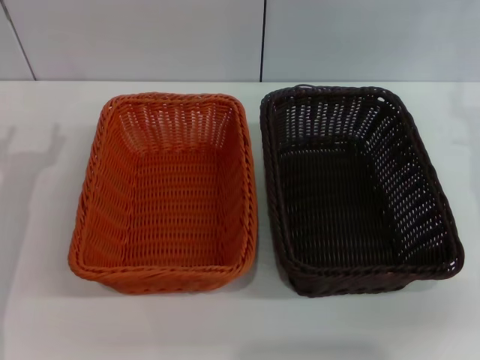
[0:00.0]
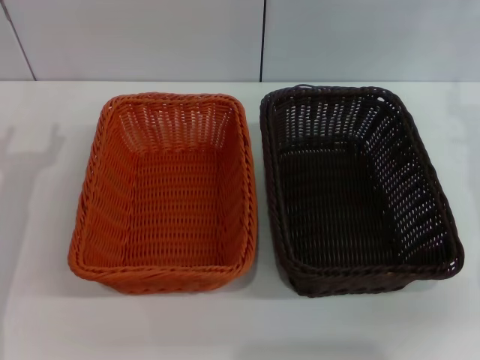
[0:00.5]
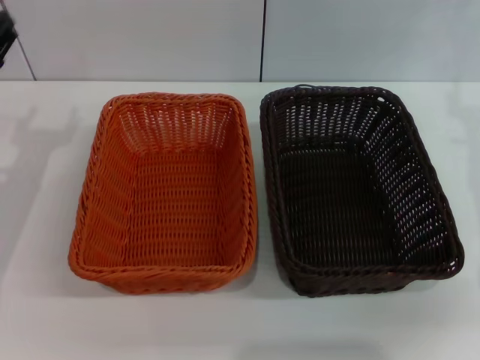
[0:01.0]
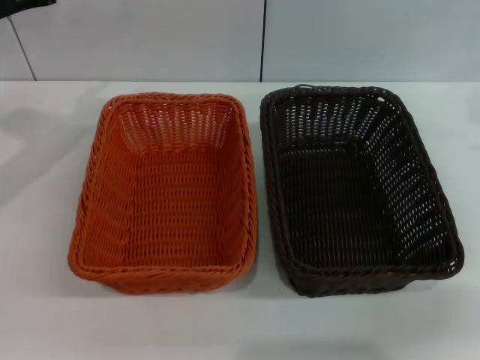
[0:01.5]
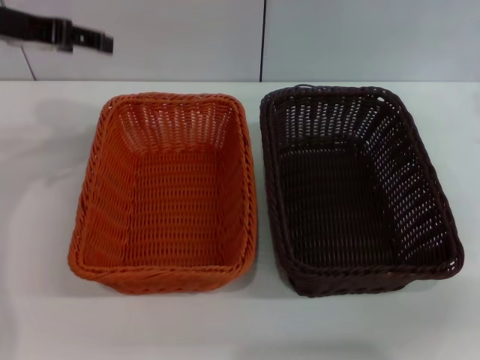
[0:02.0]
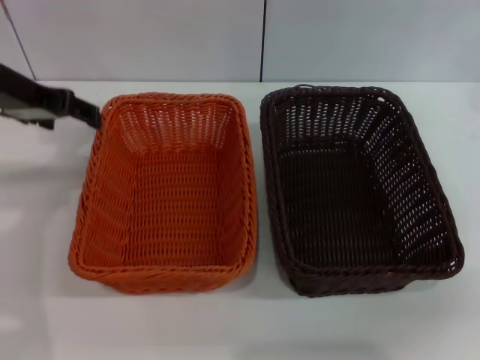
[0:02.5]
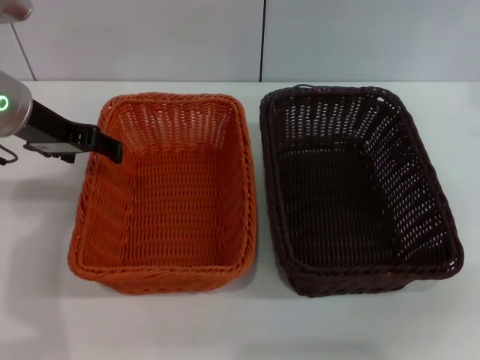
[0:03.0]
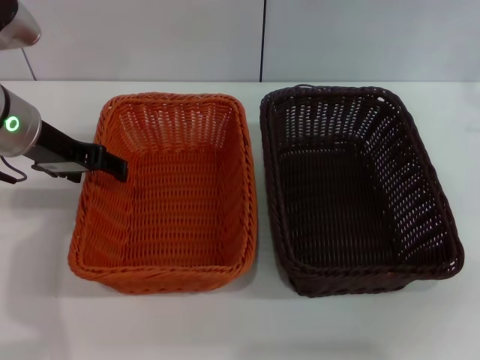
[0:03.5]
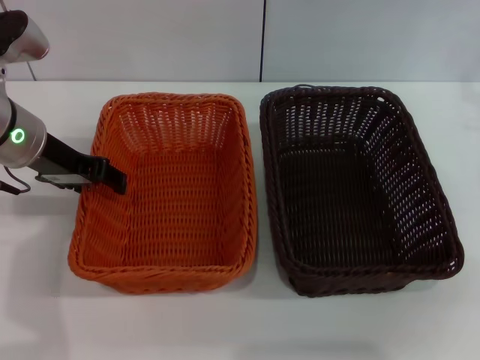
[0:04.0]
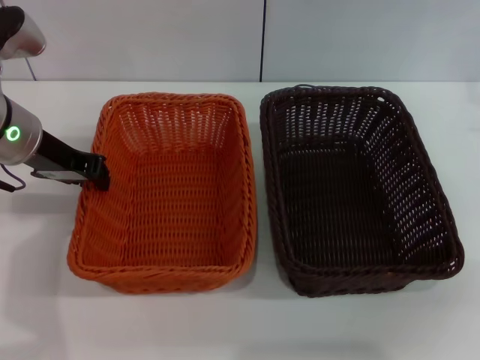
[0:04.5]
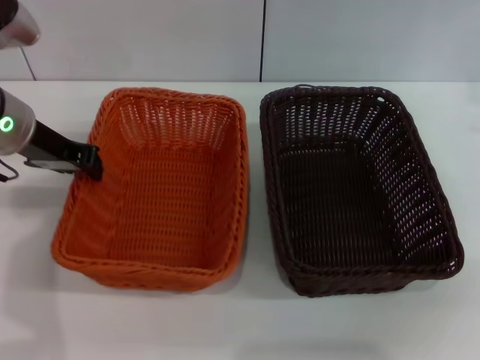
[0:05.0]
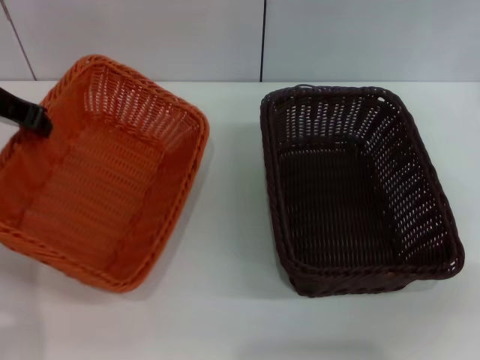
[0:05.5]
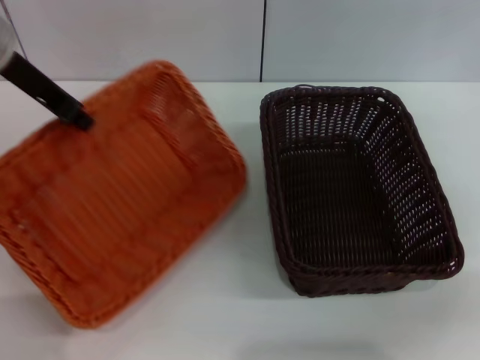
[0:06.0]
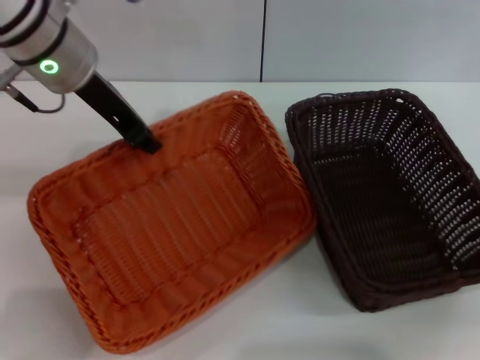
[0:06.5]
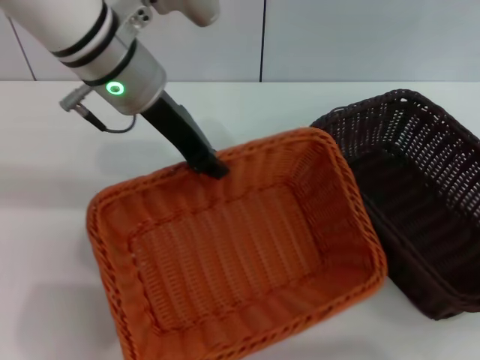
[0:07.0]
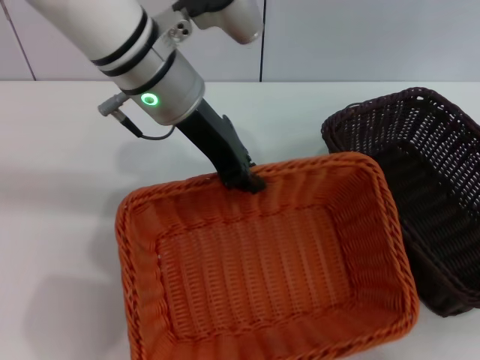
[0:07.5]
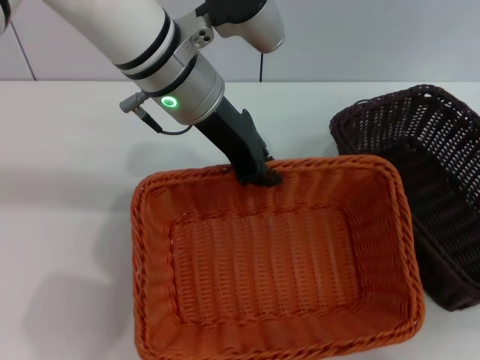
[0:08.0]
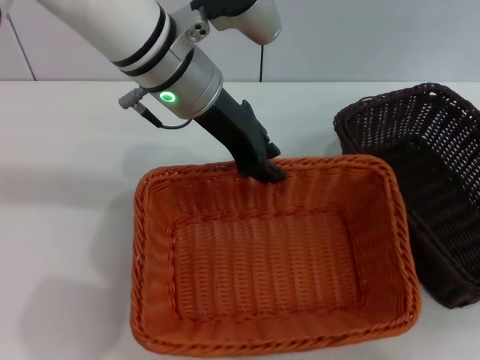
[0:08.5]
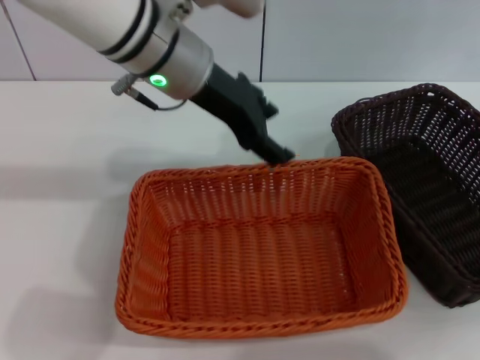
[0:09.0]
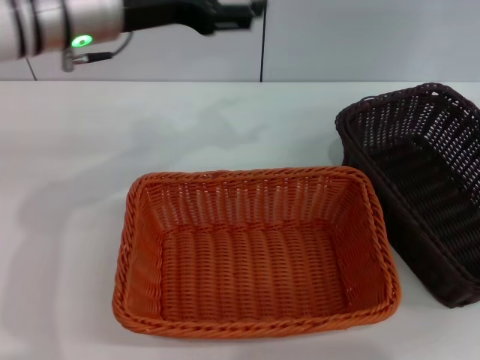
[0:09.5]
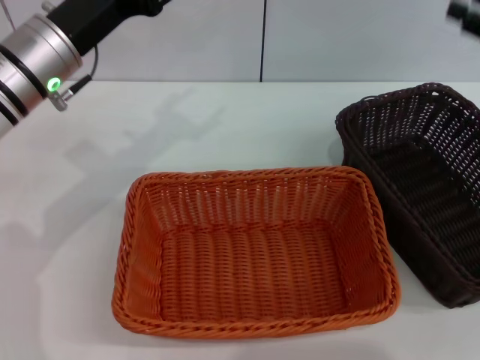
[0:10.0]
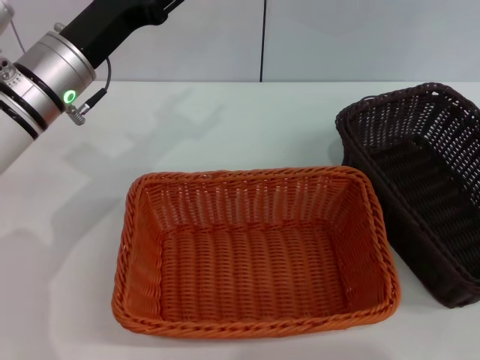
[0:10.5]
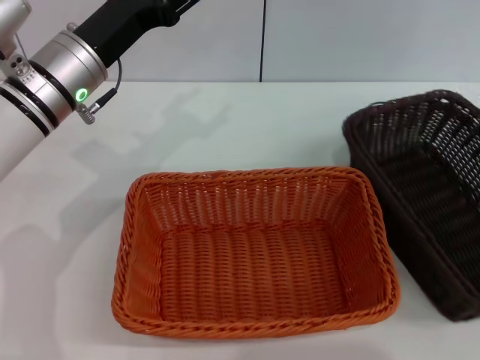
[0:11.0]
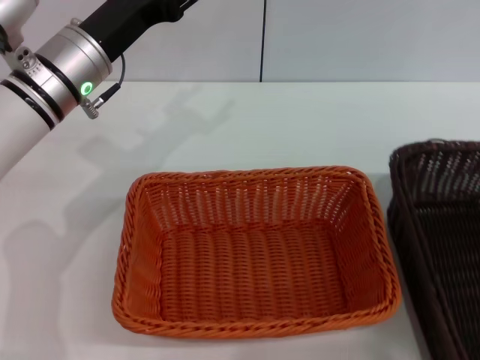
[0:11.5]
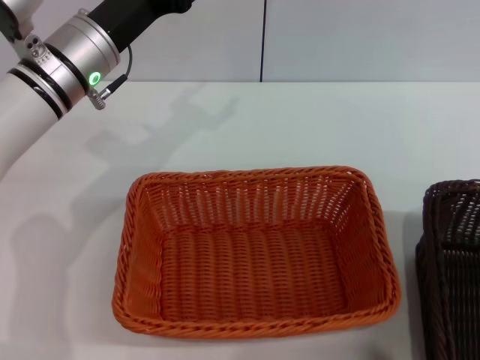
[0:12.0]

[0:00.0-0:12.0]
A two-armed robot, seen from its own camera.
Step, 0:00.0 to 0:05.0: Pick up the light basket with the left gripper.
Step, 0:06.0 to 0:08.5: Place the light basket in the center of view with the left gripper.
0:00.0 to 0:02.0: The left gripper heads upward and forward, covering approximately 20 cm.
0:02.0 to 0:04.0: The left gripper travels downward by roughly 10 cm.
0:04.0 to 0:06.0: The left gripper goes some 10 cm upward, and closes its fingers.
0:06.0 to 0:08.0: The left gripper shifts some 15 cm to the right.
0:08.0 to 0:10.0: The left gripper travels to the left by approximately 15 cm, and opens.
0:10.0 to 0:12.0: The right gripper goes approximately 10 cm backward.

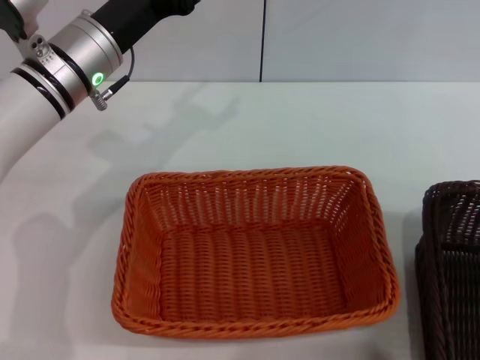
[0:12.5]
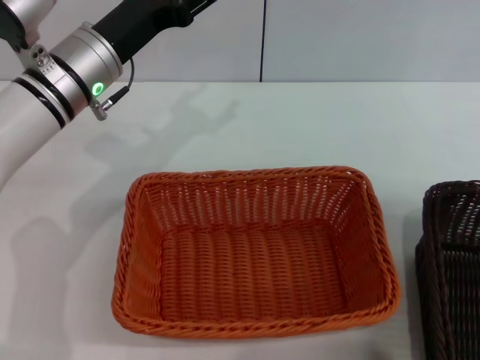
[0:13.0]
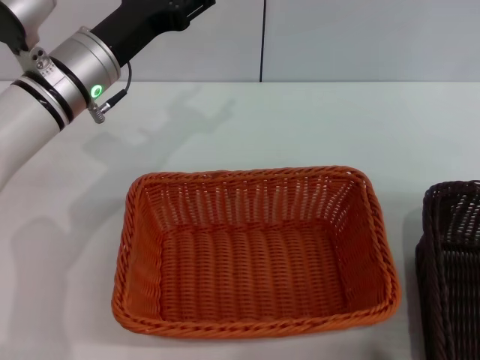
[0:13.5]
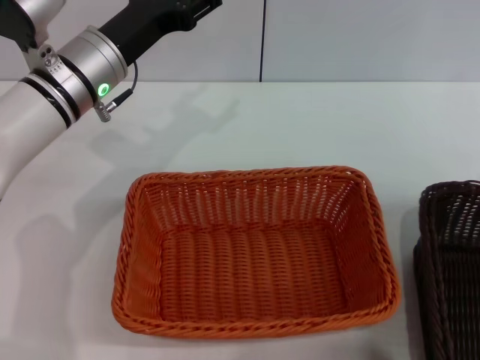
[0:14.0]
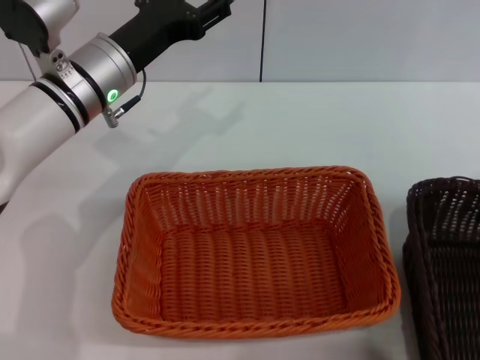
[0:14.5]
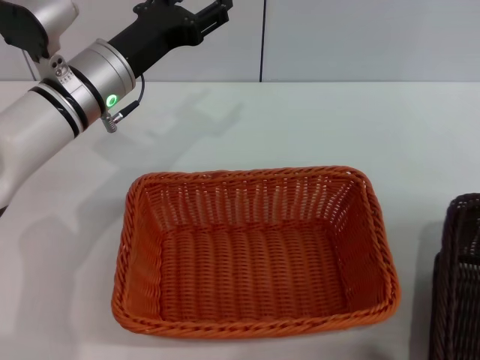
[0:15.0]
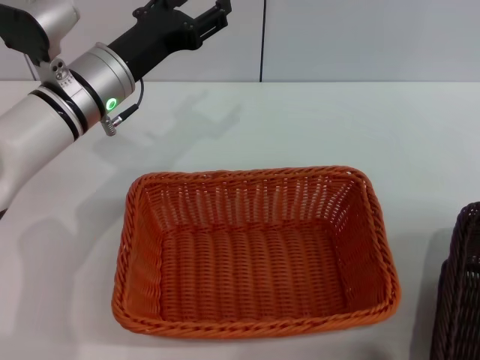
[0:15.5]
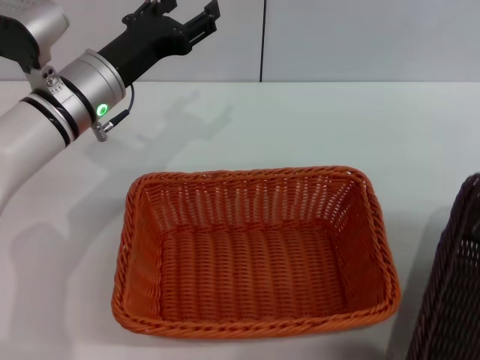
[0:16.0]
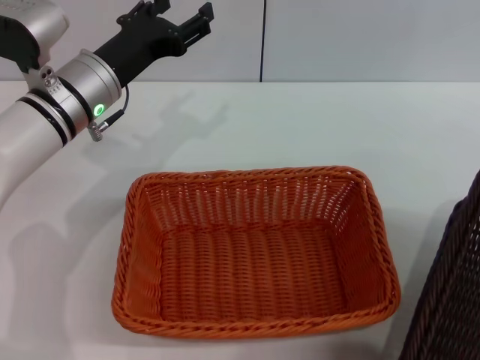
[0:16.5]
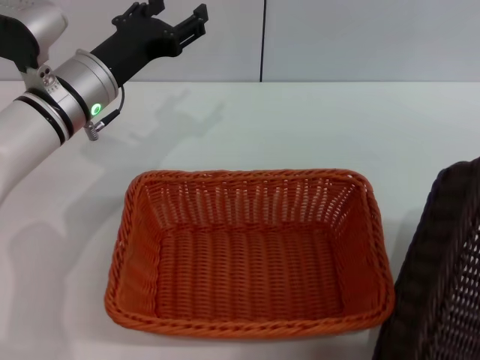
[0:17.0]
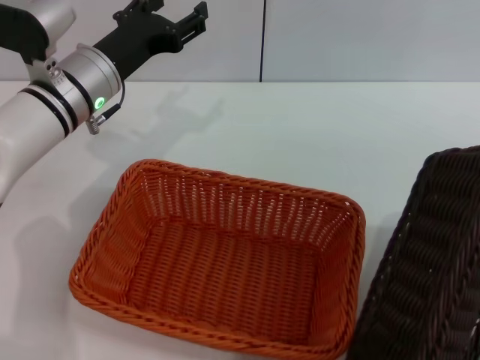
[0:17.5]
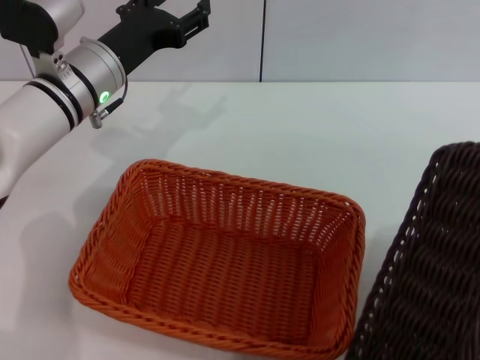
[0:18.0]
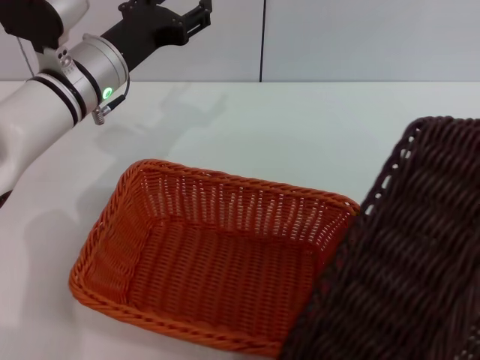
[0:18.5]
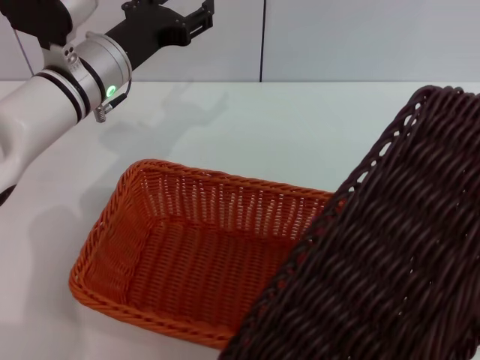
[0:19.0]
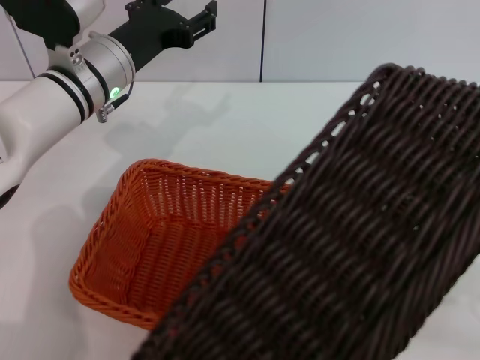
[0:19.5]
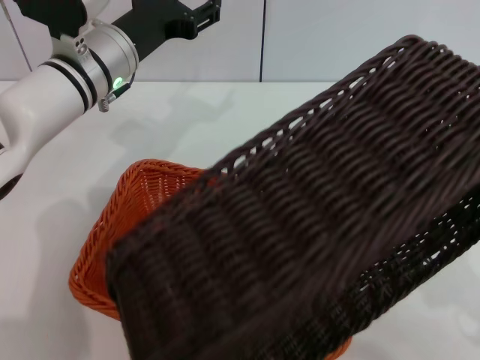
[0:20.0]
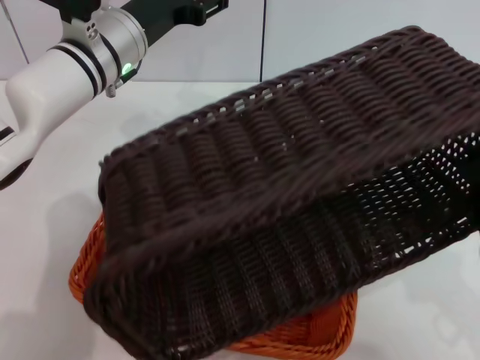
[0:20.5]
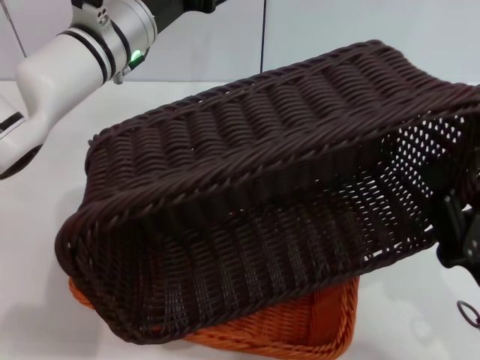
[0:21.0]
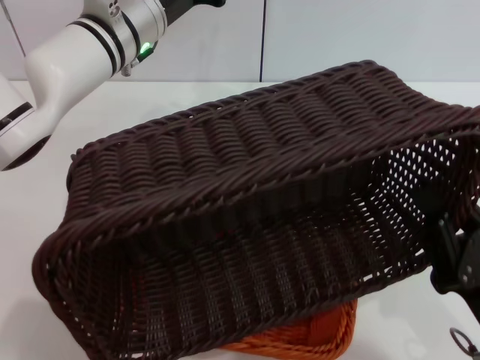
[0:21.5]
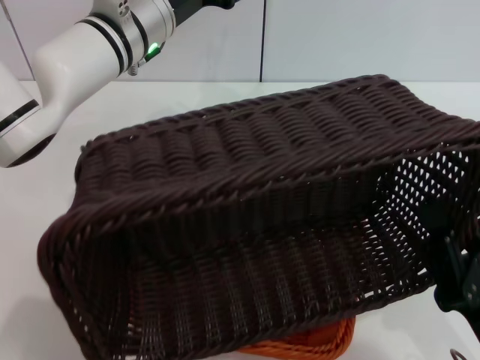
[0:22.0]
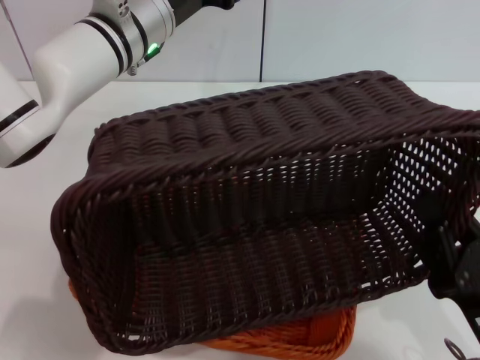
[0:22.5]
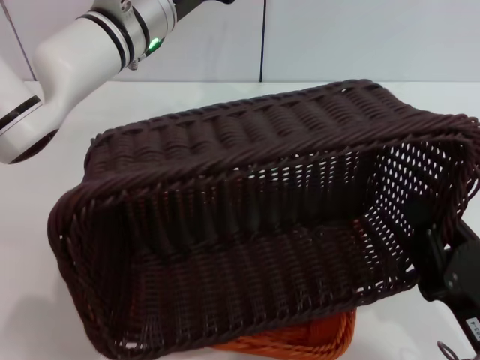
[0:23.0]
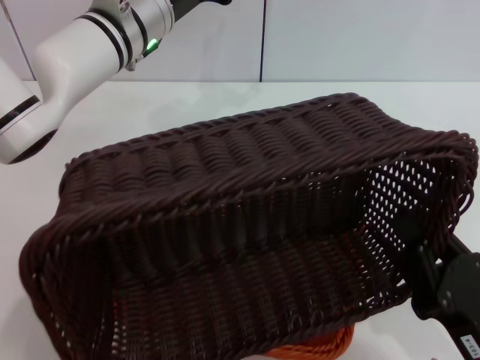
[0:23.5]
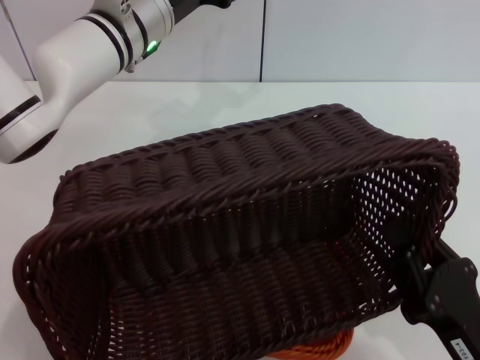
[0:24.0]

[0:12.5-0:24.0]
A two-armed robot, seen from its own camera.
Step, 0:12.5 to 0:16.0: Pick up the dark basket with the right gripper.
0:12.5 to 0:14.5: The right gripper moves forward, approximately 5 cm, and closes up.
0:14.5 to 0:16.5: The right gripper goes approximately 10 cm to the right and backward, and closes up.
0:16.5 to 0:18.5: The right gripper shifts by some 5 cm.
0:18.5 to 0:20.0: The right gripper shifts some 15 cm to the left and downward.
0:20.0 to 0:22.0: The left gripper ends up some 5 cm from where it was. The right gripper goes roughly 10 cm to the left and backward.

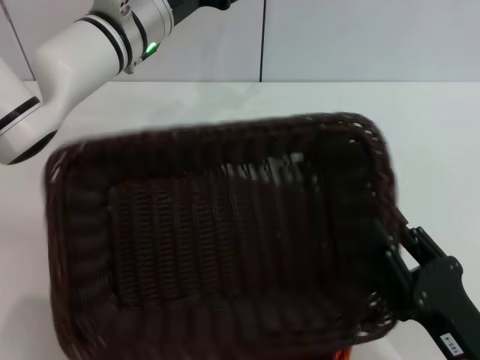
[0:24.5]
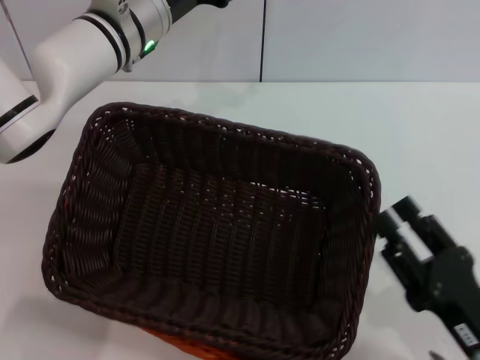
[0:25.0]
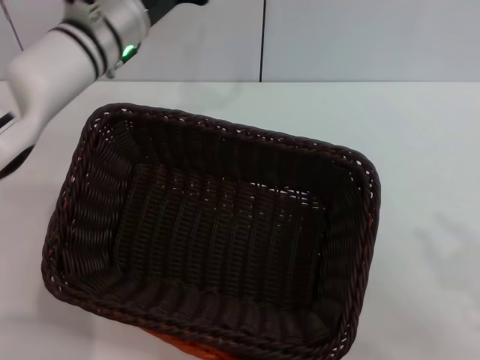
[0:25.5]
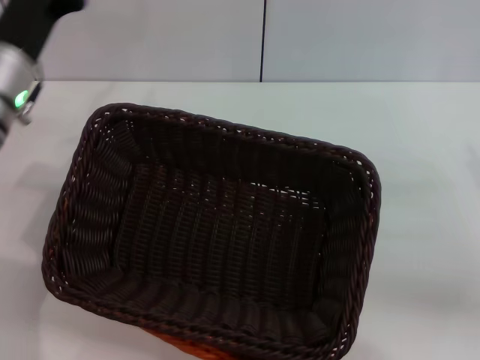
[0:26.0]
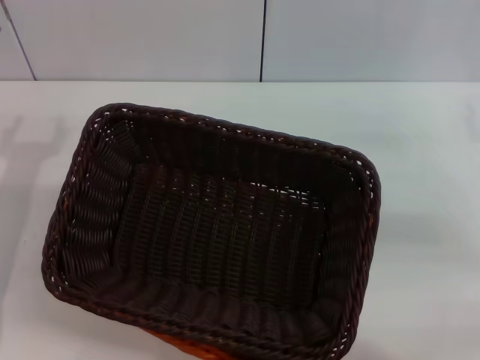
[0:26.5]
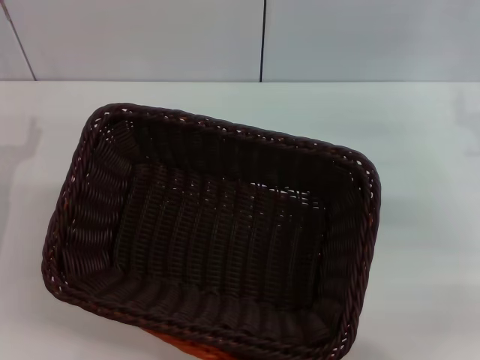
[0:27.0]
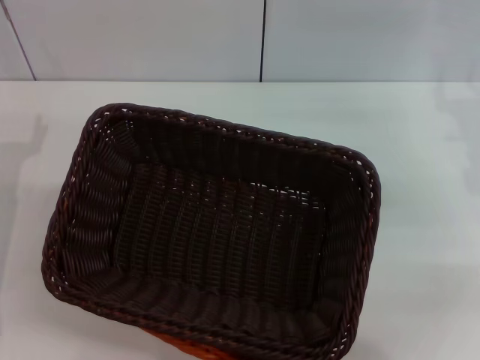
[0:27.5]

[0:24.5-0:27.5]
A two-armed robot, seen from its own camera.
0:24.5 to 0:26.0: The left gripper travels to the left and backward by about 10 cm. The right gripper goes approximately 20 cm forward, to the right and upward, and opens up.
0:26.0 to 0:27.5: The left gripper heads to the left, backward and downward, covering about 15 cm.
